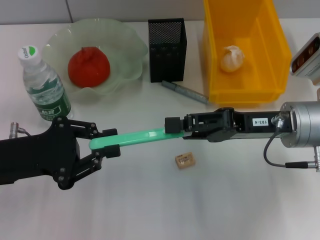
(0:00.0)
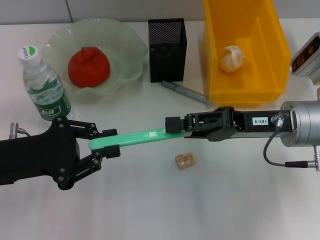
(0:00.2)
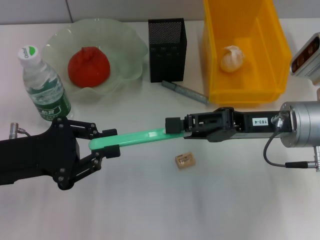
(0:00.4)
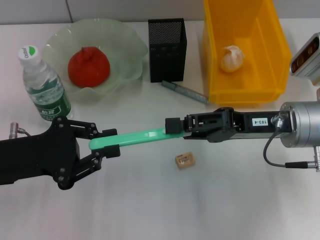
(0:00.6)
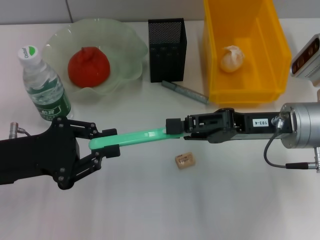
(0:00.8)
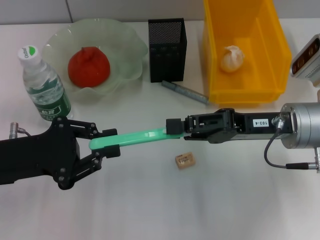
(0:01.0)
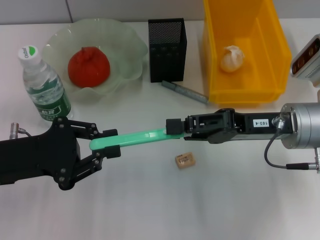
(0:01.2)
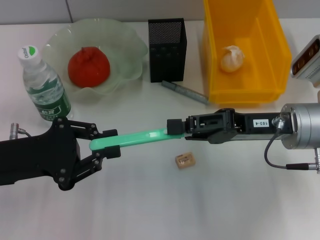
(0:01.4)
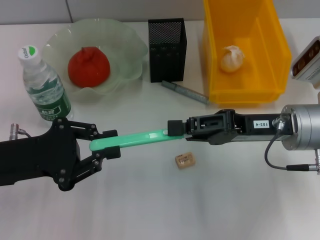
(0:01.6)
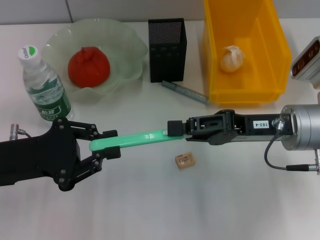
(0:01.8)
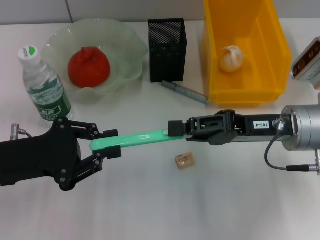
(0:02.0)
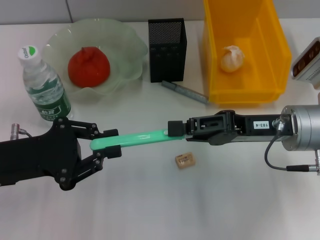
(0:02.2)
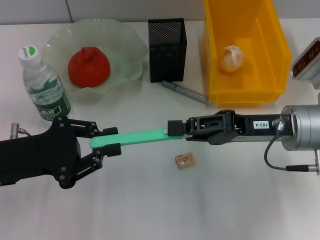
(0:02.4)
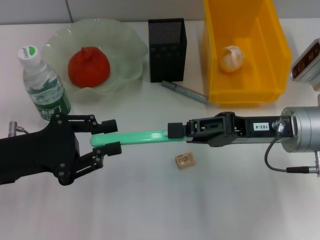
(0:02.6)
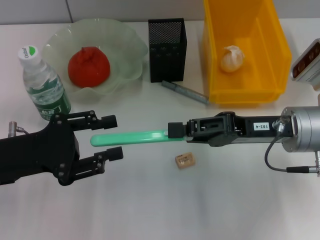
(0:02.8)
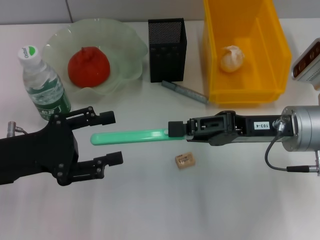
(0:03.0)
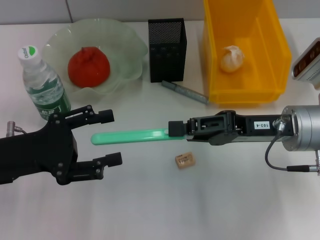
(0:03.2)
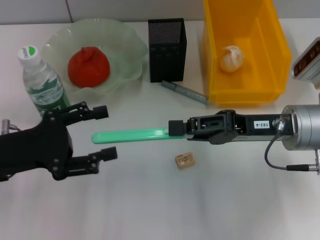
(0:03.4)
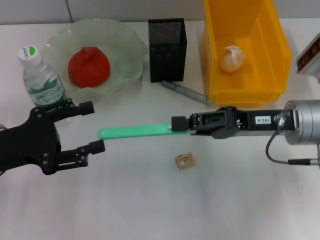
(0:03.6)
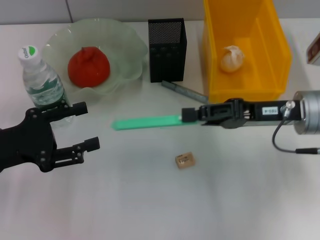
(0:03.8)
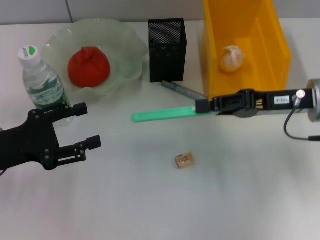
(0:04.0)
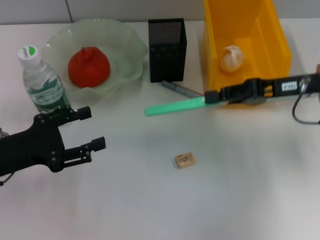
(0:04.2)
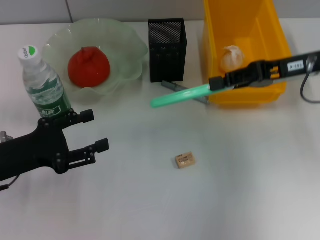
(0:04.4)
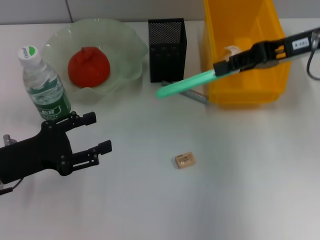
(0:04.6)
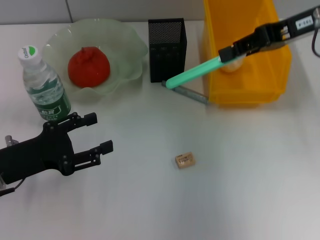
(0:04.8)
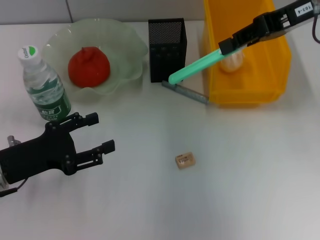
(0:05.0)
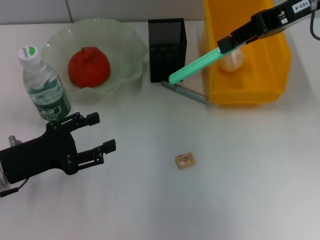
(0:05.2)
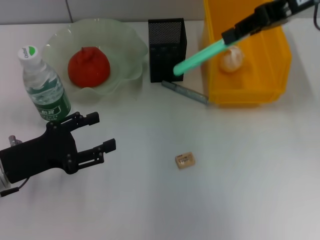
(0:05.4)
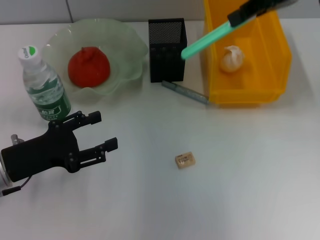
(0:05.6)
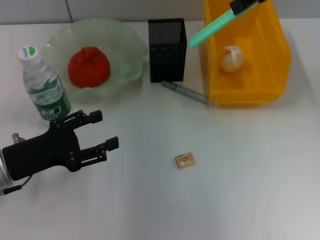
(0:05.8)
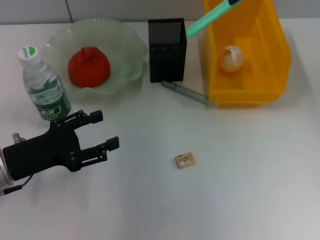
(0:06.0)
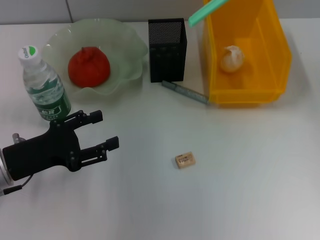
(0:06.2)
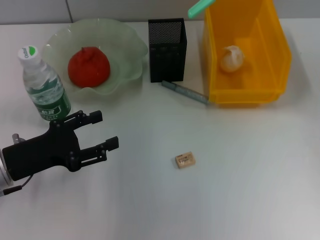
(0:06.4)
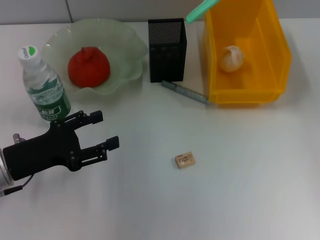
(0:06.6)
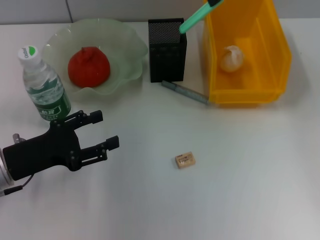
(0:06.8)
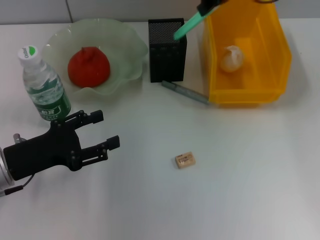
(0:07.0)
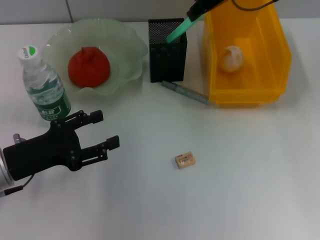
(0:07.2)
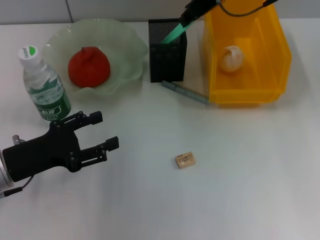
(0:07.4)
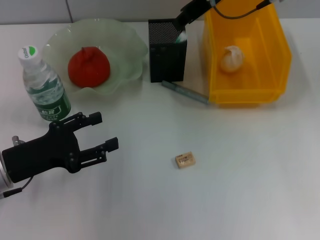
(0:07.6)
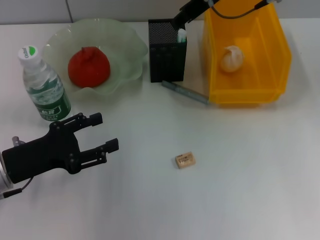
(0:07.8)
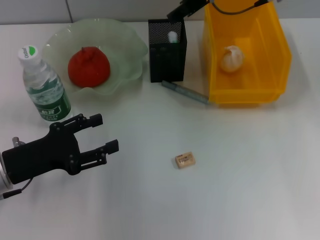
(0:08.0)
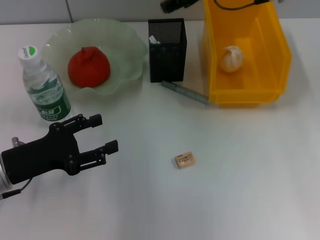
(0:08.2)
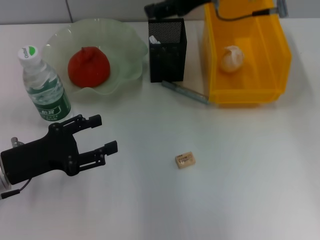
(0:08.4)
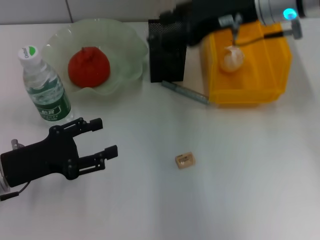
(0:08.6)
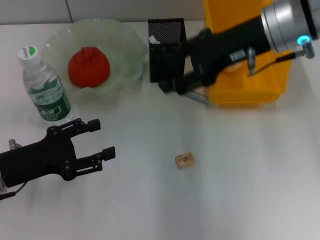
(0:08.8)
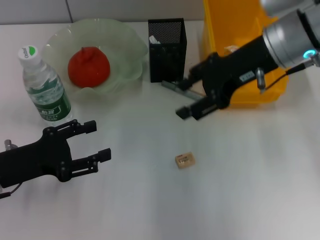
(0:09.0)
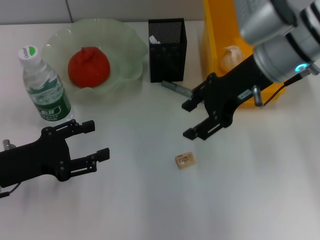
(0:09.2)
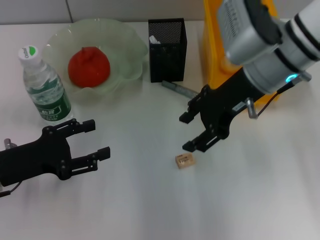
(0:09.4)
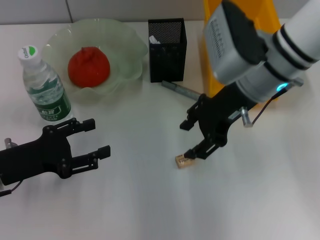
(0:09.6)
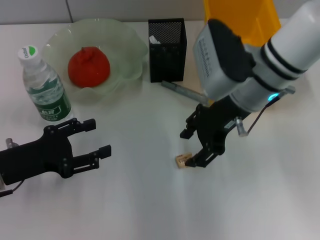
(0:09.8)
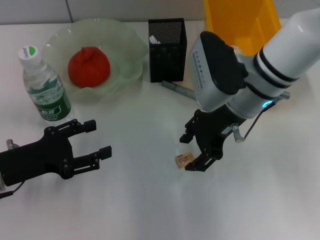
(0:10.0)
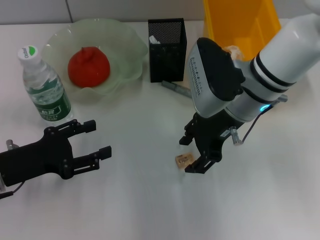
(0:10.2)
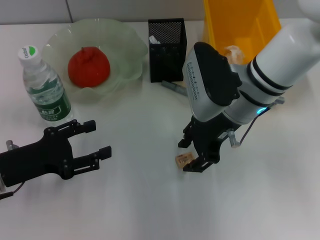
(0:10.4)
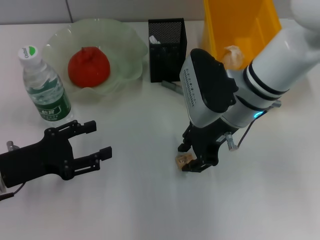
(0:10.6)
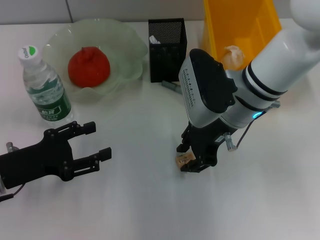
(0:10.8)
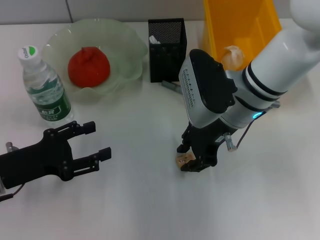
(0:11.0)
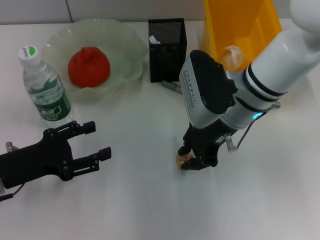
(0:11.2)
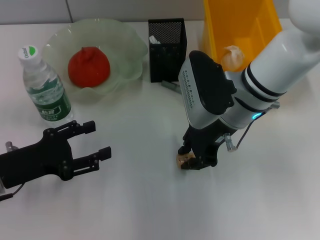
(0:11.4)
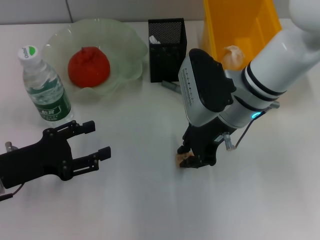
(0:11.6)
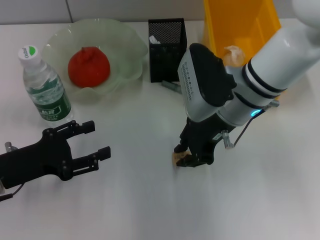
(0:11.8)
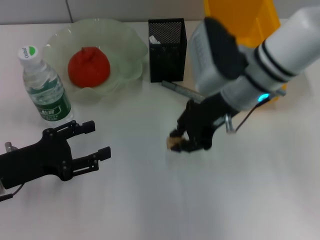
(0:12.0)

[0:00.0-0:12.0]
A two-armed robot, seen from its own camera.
Step, 0:00.0 to 0:02.8: Pass the blue utility knife from the left hand to the right hand.
Step, 0:03.2 to 0:08.0: Place the blue utility knife into the pen holder with the right hand.
Step, 0:08.2 to 0:11.2: Grab the eraser with the right hand.
0:00.0 to 0:01.6: The two grippers keep their place.
0:01.6 to 0:03.0: The left gripper opens up.
0:03.0 to 0:04.4: The right gripper goes some 10 cm upward and forward. The left gripper opens up.
0:04.4 to 0:06.0: The right gripper is displaced upward and forward by some 15 cm.
0:06.0 to 0:07.6: The right gripper goes some 10 cm to the left and downward.
0:07.6 to 0:09.0: The right gripper heads backward and to the right, covering approximately 10 cm, and opens up.
0:09.0 to 0:10.4: The right gripper is displaced downward and to the left by some 10 cm.
0:10.4 to 0:12.0: The right gripper closes.

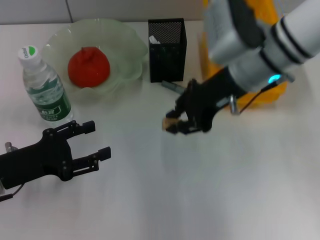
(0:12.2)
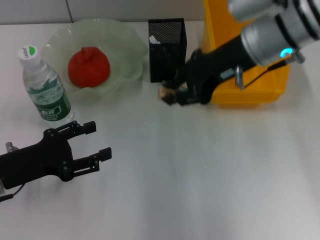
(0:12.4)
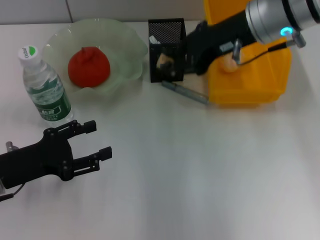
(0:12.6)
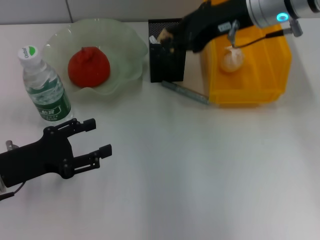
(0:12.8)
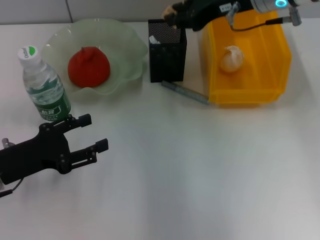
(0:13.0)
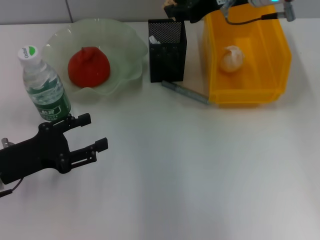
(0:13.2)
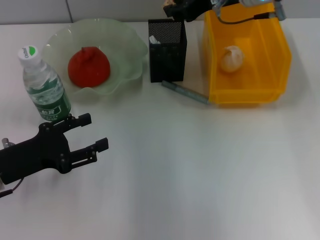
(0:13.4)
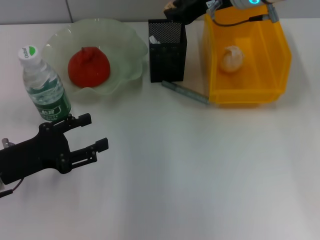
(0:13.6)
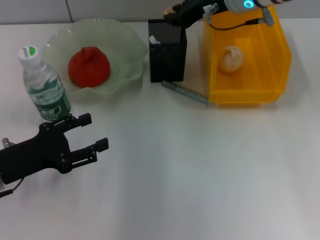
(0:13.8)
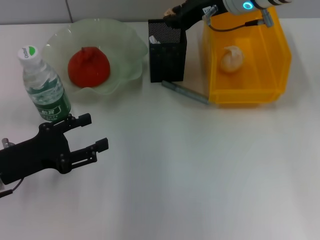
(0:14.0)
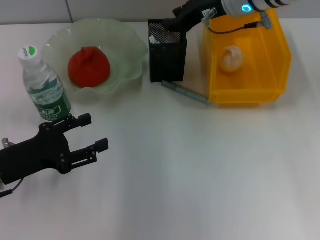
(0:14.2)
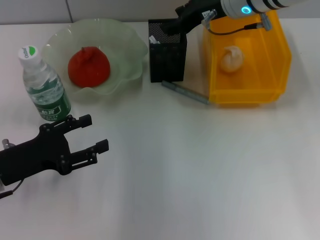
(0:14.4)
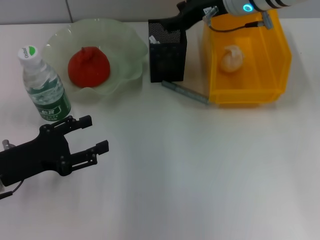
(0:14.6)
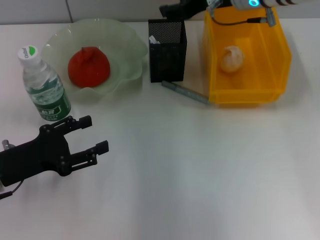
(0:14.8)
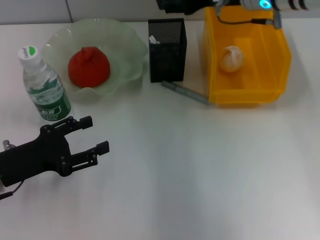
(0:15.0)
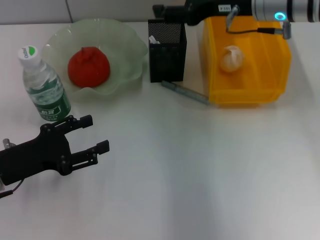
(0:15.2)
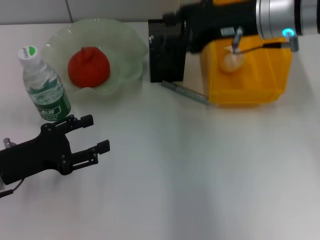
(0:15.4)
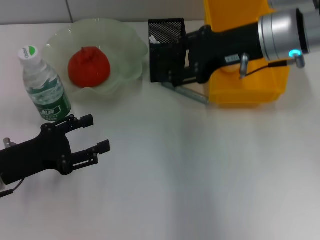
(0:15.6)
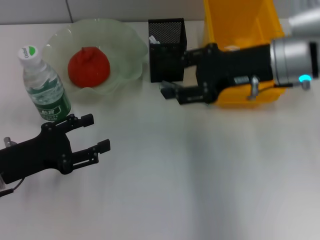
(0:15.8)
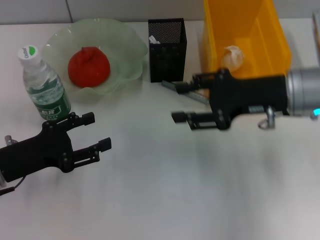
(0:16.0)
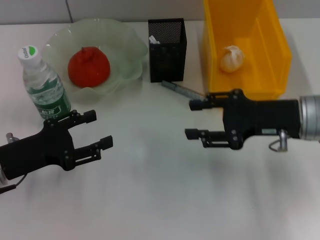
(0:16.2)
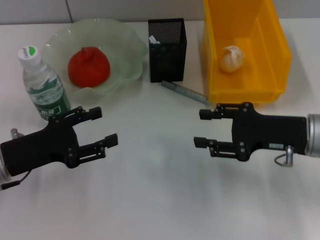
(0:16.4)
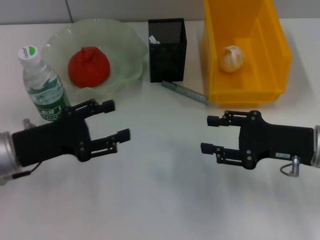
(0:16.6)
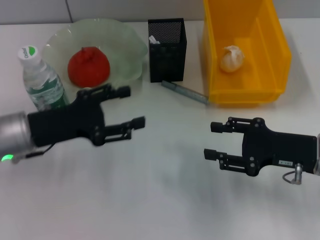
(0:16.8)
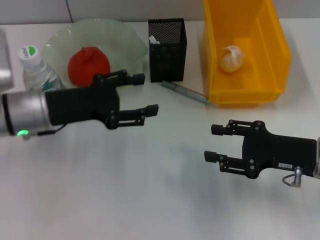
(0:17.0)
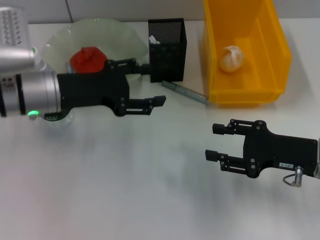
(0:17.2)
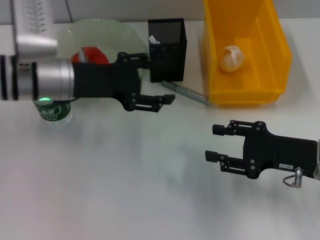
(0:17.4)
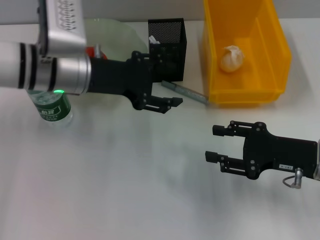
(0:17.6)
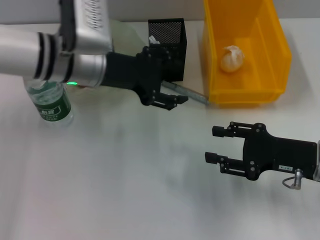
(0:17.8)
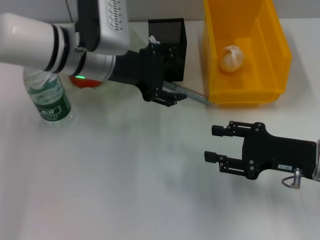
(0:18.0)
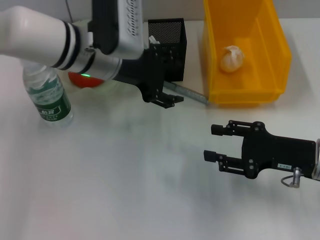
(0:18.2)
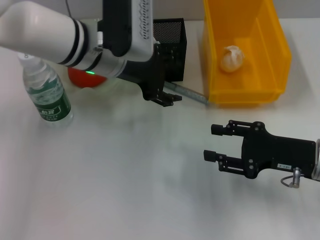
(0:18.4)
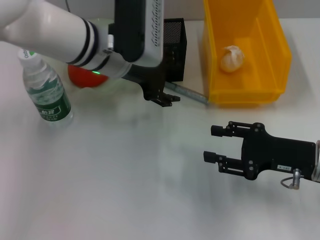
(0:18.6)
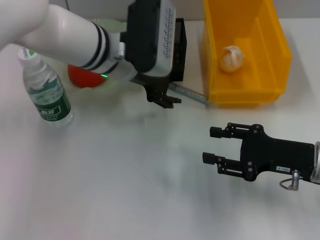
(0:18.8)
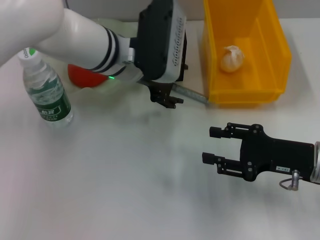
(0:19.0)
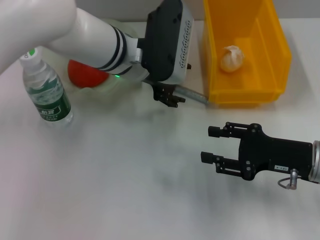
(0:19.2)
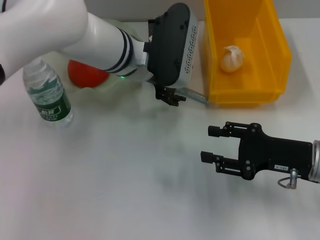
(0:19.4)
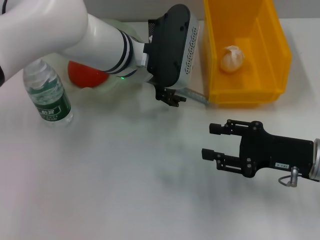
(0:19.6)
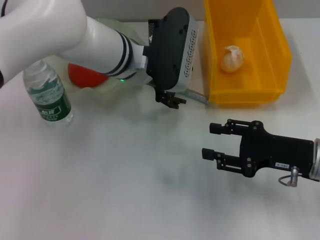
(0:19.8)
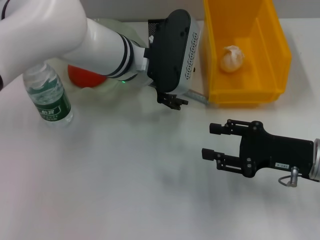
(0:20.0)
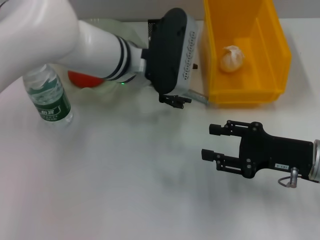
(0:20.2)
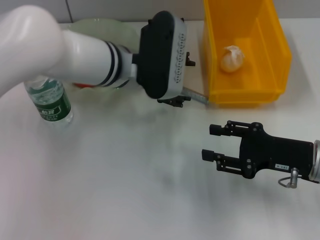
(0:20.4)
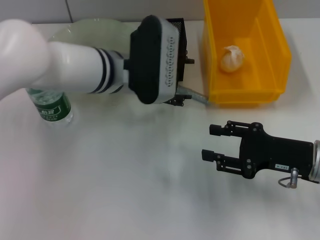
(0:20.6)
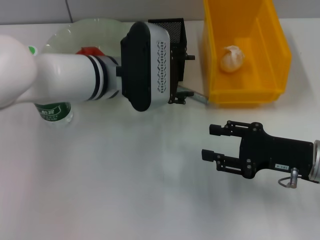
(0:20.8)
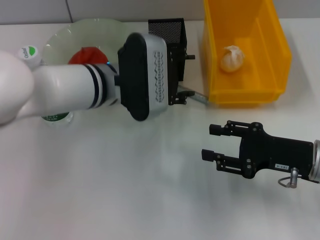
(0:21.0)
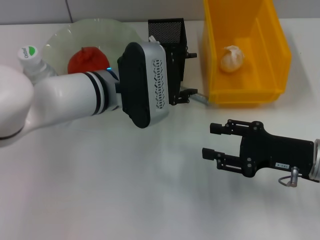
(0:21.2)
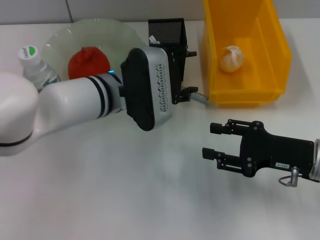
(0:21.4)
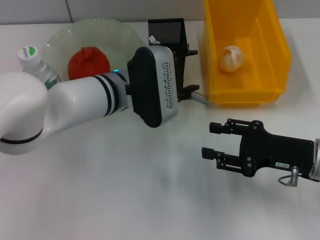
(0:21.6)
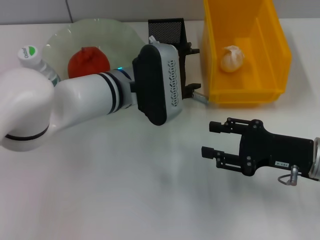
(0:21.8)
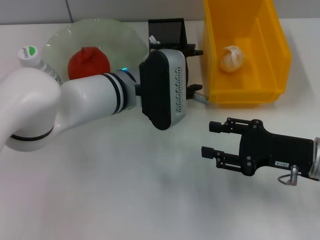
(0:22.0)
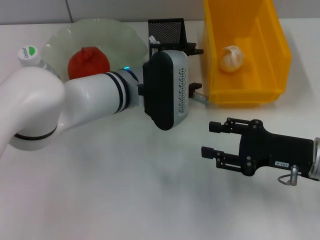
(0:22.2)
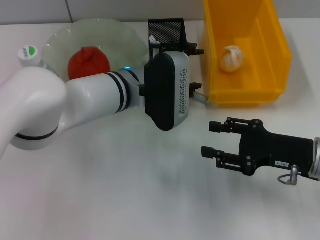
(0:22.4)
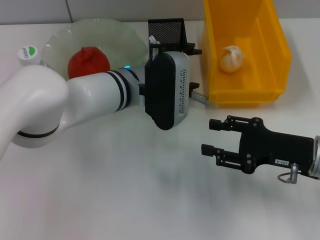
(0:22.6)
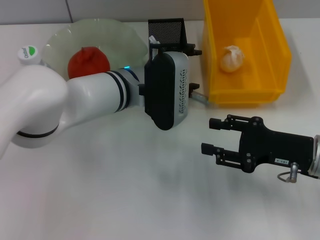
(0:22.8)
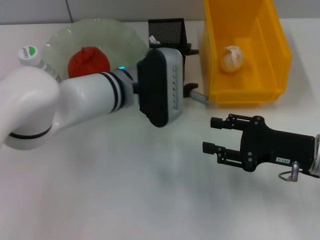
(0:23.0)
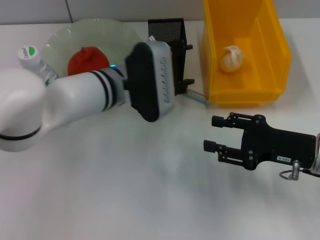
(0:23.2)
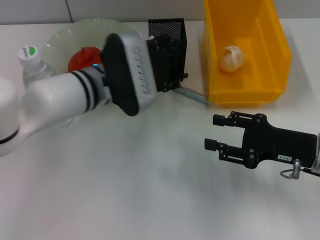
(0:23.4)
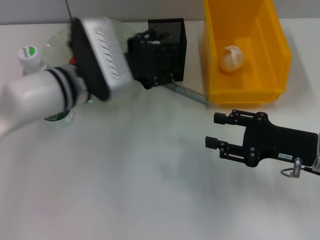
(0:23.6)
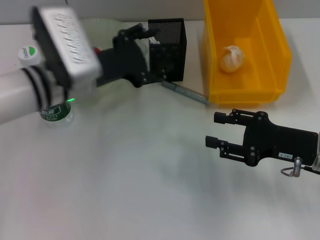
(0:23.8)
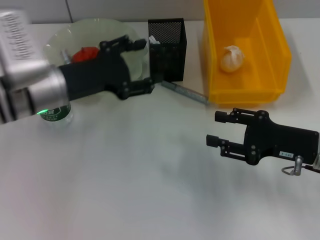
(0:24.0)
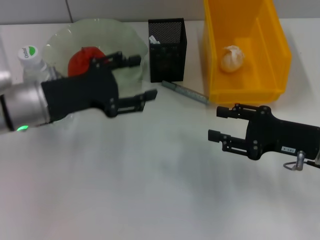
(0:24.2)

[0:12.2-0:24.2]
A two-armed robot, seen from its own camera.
Step, 0:12.2 to 0:14.4: Put the eraser into the pen holder with the right hand.
0:12.2 to 0:13.8: The right gripper is displaced forward by about 10 cm.
0:13.8 to 0:15.2: The right gripper ends up roughly 5 cm from where it was, and opens up.
0:15.2 to 0:16.6: The right gripper goes roughly 20 cm downward, backward and to the right.
0:16.6 to 0:18.2: The left gripper heads to the right, forward and upward, covering some 20 cm.
0:18.2 to 0:19.8: The left gripper shifts about 5 cm to the right.
0:19.8 to 0:21.2: The left gripper shifts by about 5 cm.
0:21.2 to 0:22.6: There are only small adjustments of the grippers.
0:22.6 to 0:24.2: The left gripper goes about 15 cm to the left.
